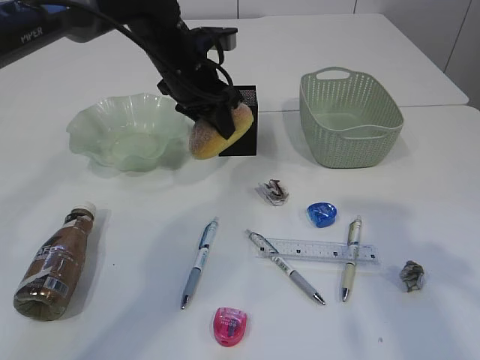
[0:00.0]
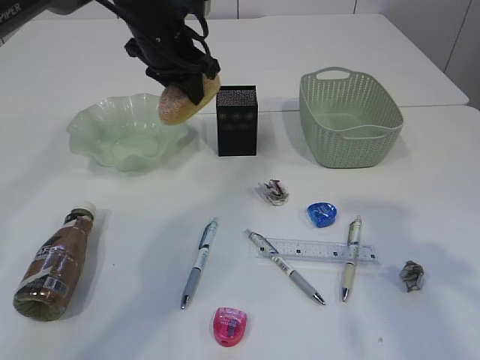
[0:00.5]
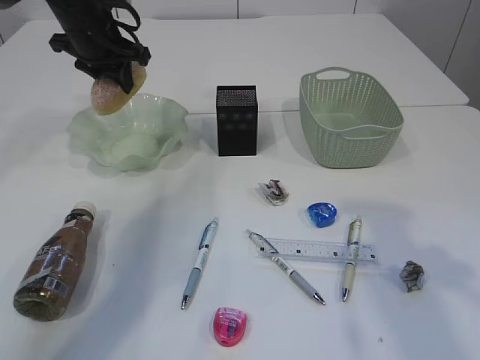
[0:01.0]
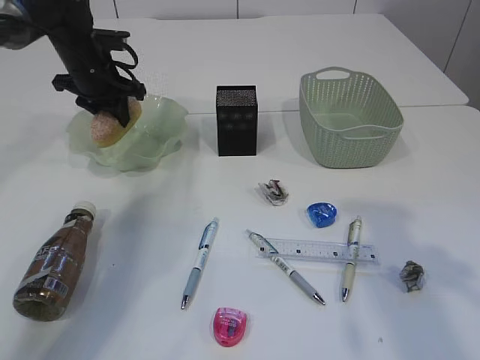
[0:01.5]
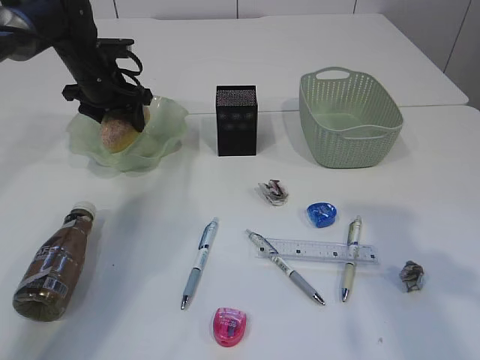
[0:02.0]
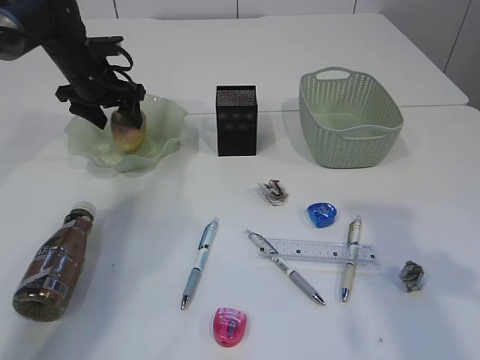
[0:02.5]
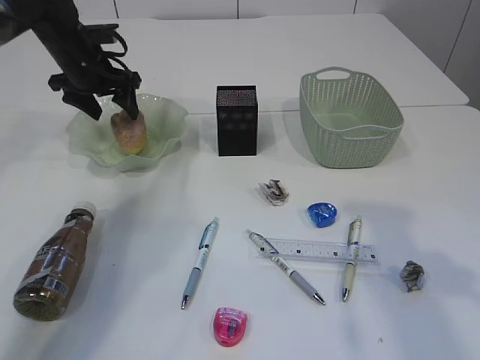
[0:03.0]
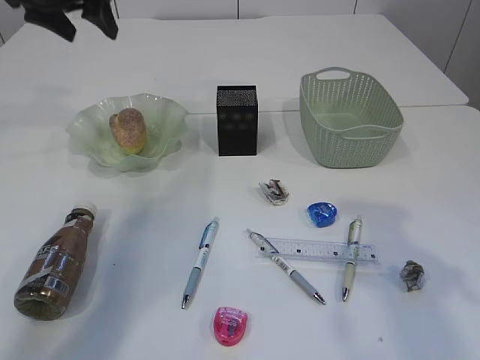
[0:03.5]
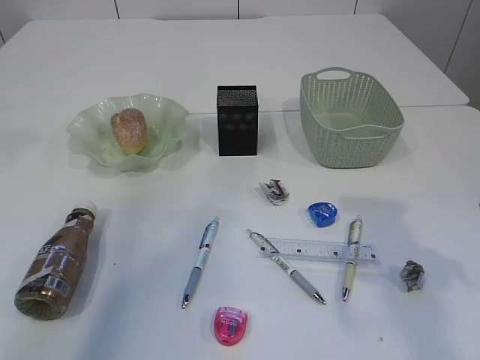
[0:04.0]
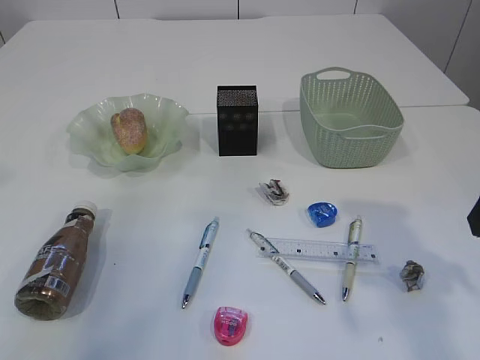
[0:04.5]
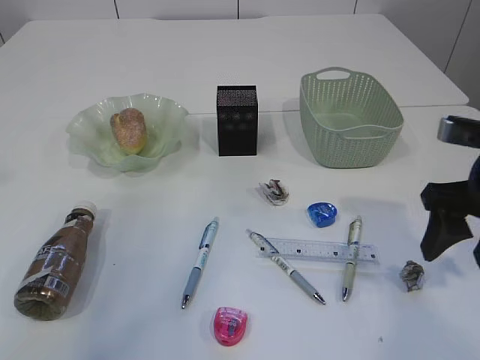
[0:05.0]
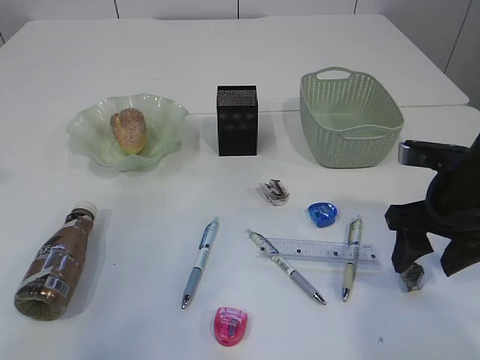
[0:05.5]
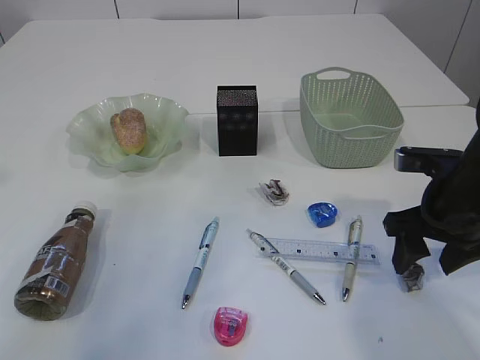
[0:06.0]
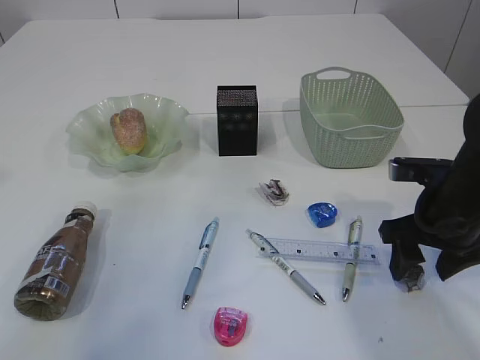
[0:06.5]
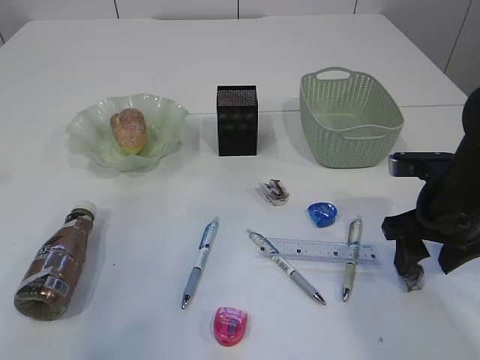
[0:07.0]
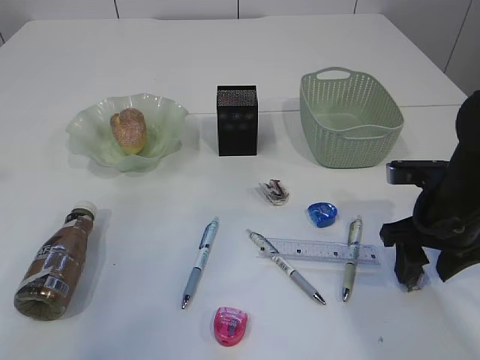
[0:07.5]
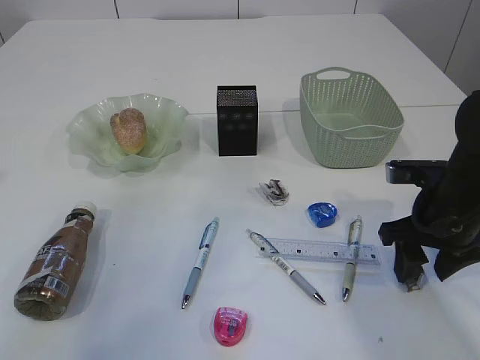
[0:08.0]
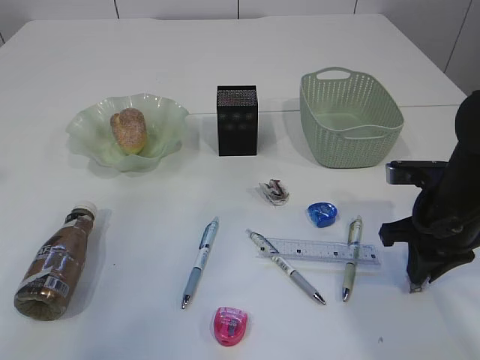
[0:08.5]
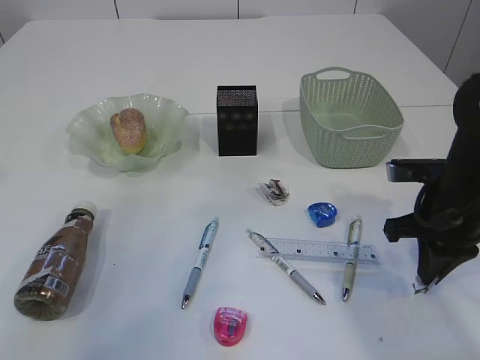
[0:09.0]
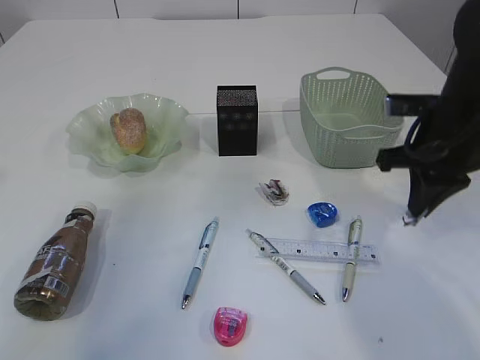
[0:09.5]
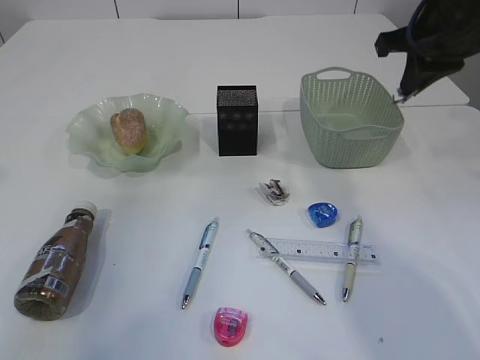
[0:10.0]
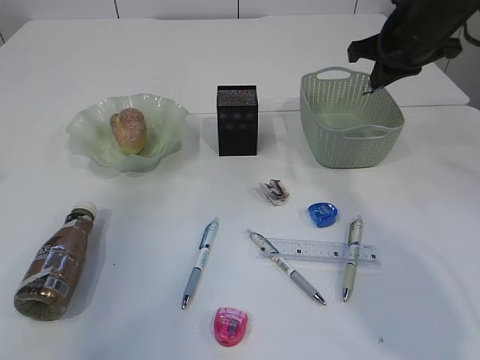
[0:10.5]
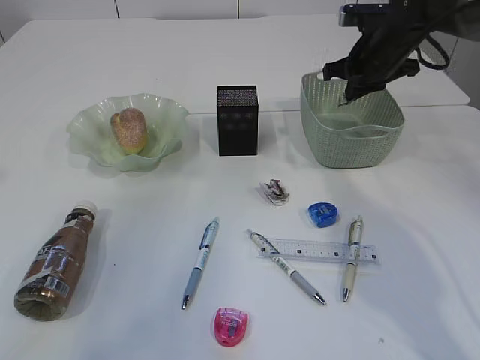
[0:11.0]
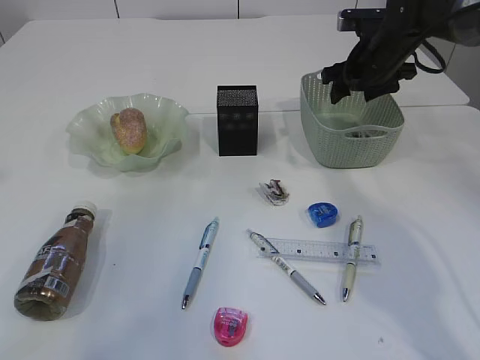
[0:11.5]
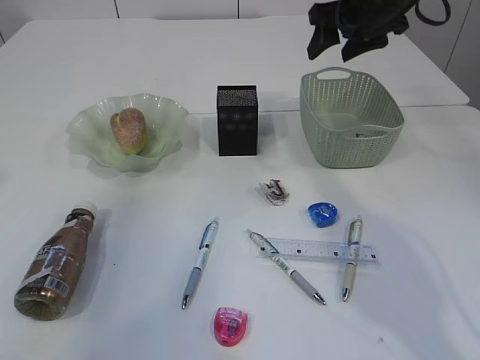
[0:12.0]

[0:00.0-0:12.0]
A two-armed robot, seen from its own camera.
Step, 0:00.5 to 0:03.0: place the bread in the plate.
Step, 0:03.5 to 0:09.0: Pick up the waste paper.
Step, 0:09.5 to 0:11.5: Place the waste paper in the basket.
0:00.0 to 0:02.0: The left gripper moves to the left and forward, approximately 15 cm, and opens.
0:02.0 to 0:04.0: The left gripper is displaced upward and backward by some 30 cm.
0:04.0 to 0:06.0: The right gripper goes about 15 cm downward and forward.
0:06.0 to 0:08.0: There are only small adjustments of the grippers.
0:08.0 to 0:10.0: The right gripper shifts some 20 cm upward and forward, and closes up.
0:10.0 to 0:12.0: The right gripper goes about 10 cm forward, and opens its fingers.

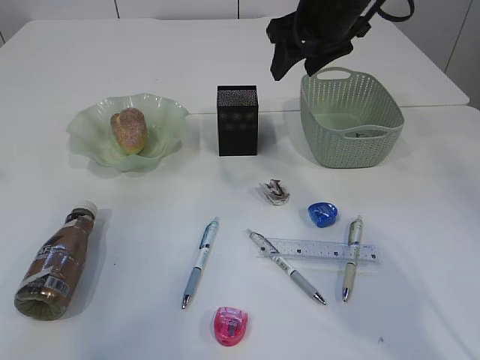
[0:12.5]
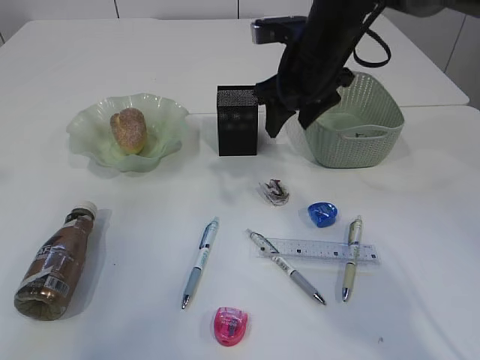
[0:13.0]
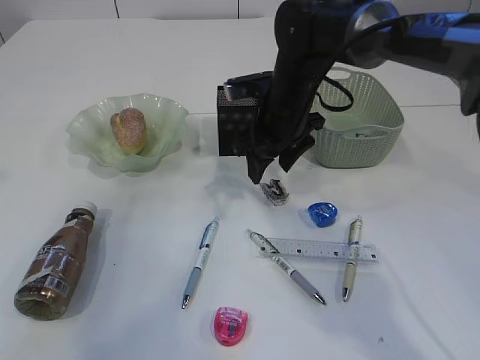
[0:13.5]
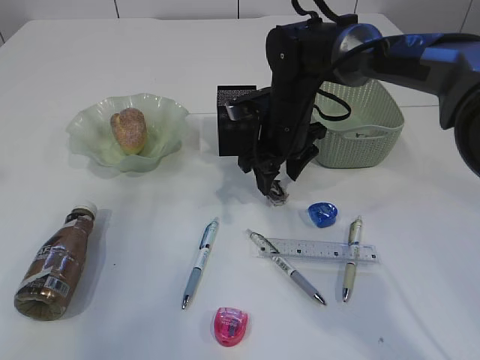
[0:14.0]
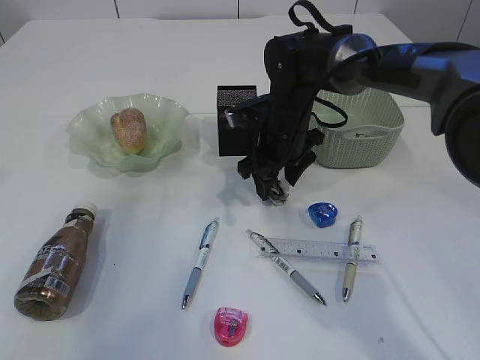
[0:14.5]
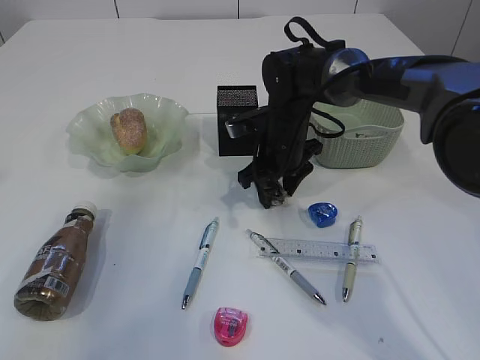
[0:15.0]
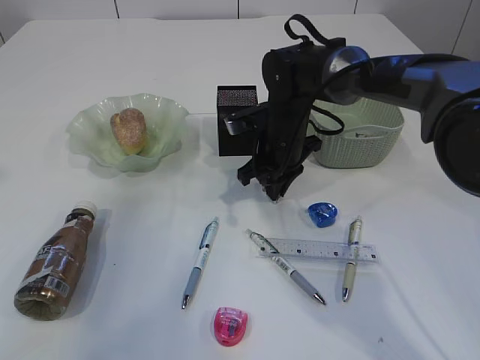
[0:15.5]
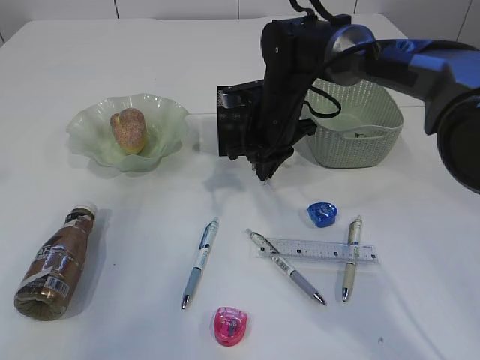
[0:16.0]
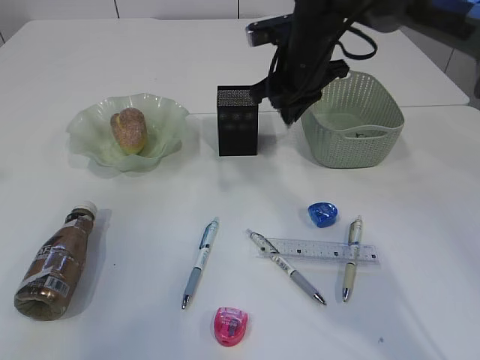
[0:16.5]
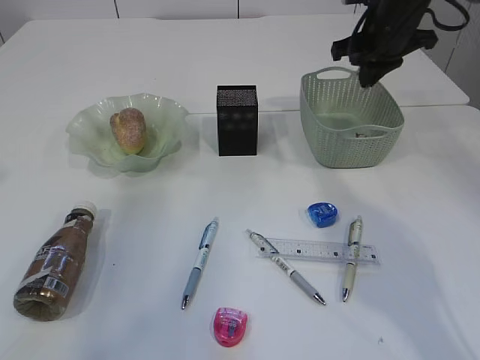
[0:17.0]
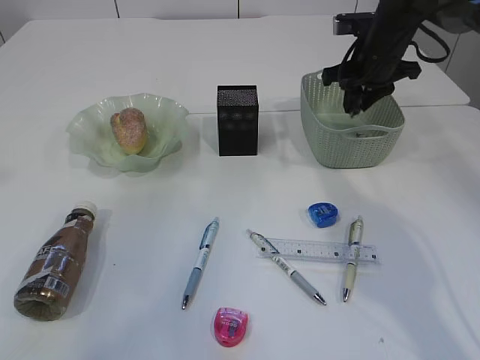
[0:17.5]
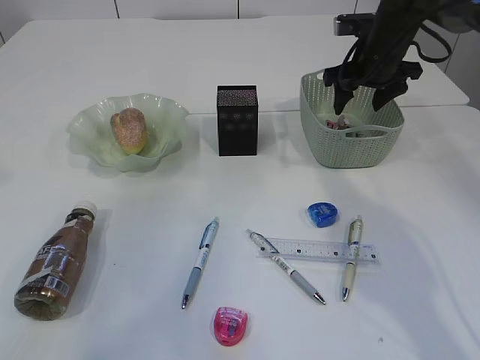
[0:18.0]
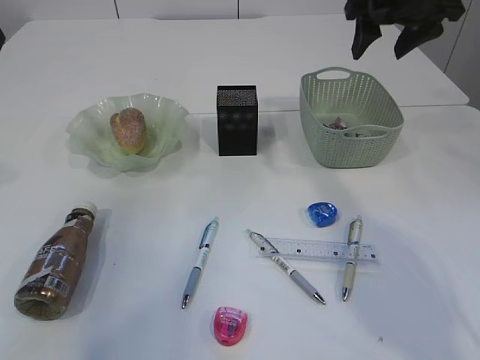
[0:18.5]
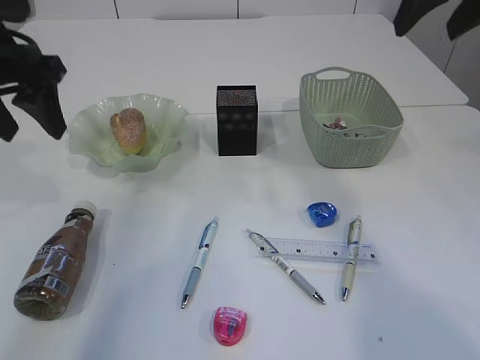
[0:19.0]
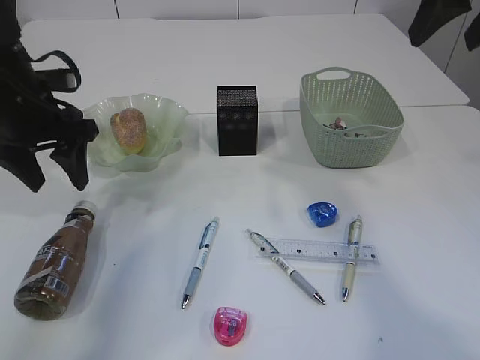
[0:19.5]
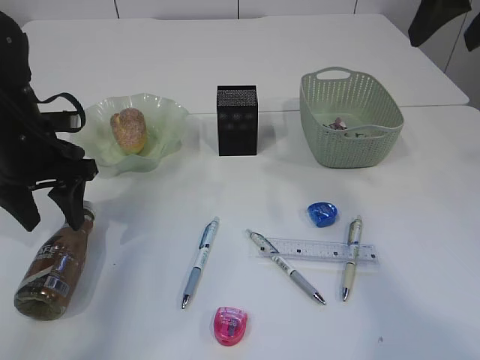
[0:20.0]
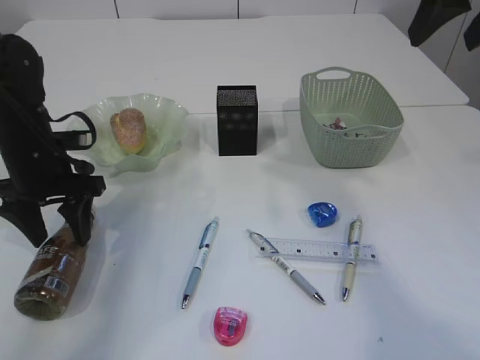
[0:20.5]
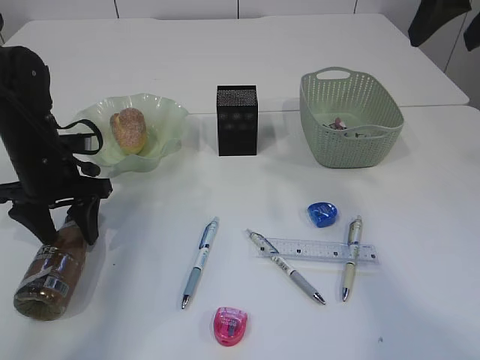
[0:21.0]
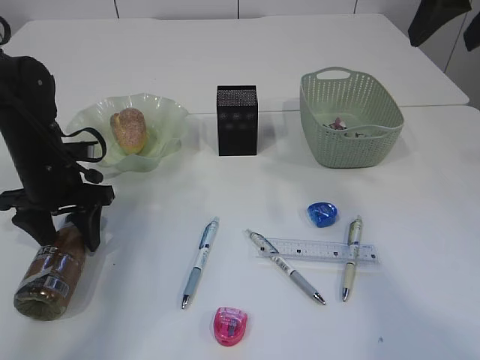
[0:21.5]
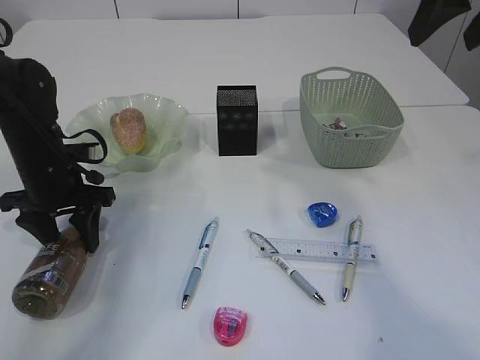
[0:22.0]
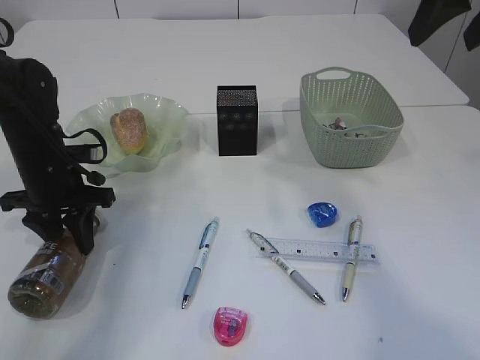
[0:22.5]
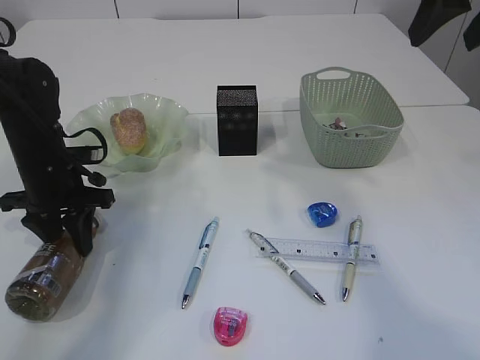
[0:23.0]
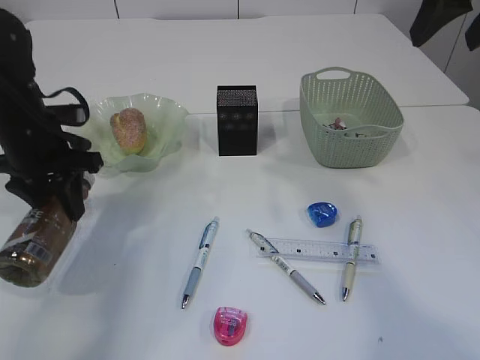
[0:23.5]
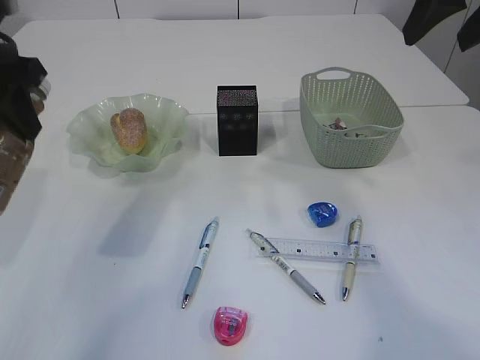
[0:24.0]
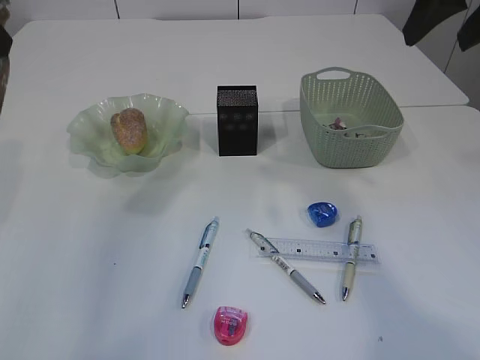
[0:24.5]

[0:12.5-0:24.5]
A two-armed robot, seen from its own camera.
Step, 0:12.5 to 0:16.0: Pick up the waste paper.
Step, 0:16.5 to 0:18.0: Place the waste paper in the basket.
Step, 0:18.5 to 0:23.5: Pick up the bottle with the left arm.
0:12.5 to 0:14.5: The right gripper travels downward by about 15 cm.
0:14.5 to 0:16.5: The right gripper heads upward, covering roughly 10 cm, and closes up.
0:16.5 to 0:18.5: The right gripper heads to the right and upward, covering some 15 cm, and opens.
0:18.5 to 0:20.5: The left gripper goes approximately 25 cm downward. The right gripper goes roughly 15 cm backward and upward.
0:20.5 to 0:22.5: The left gripper closes up.
0:22.5 to 0:24.5: The left gripper goes some 25 cm upward.

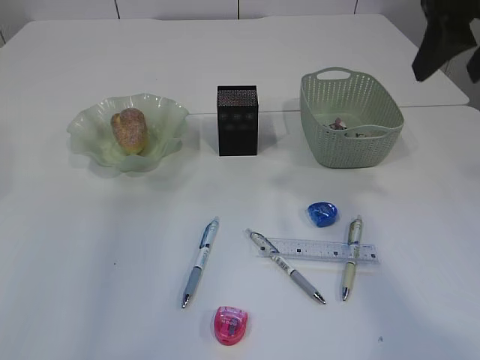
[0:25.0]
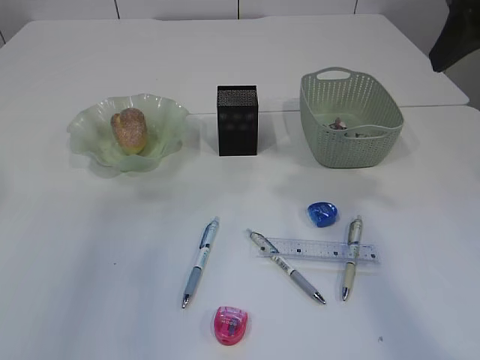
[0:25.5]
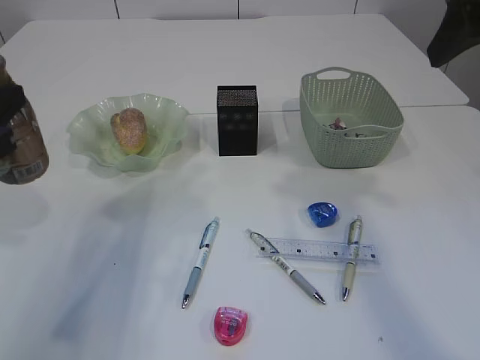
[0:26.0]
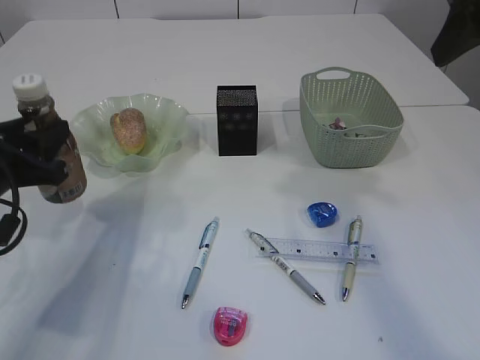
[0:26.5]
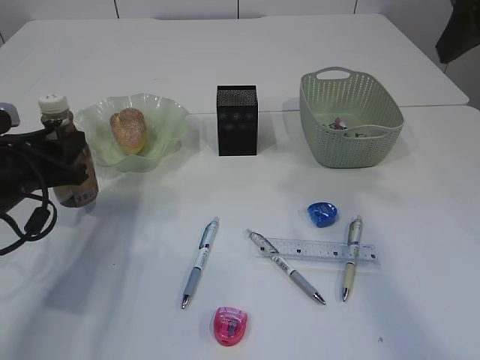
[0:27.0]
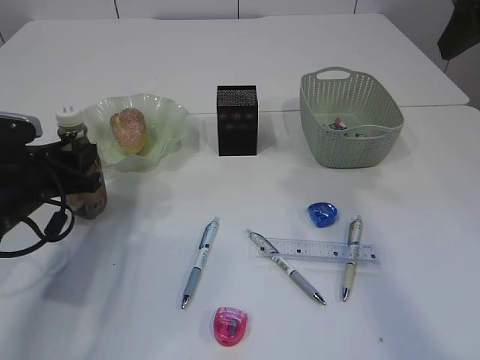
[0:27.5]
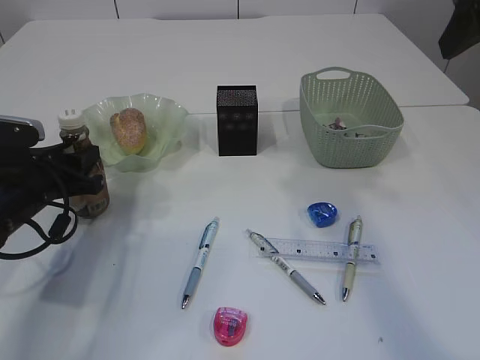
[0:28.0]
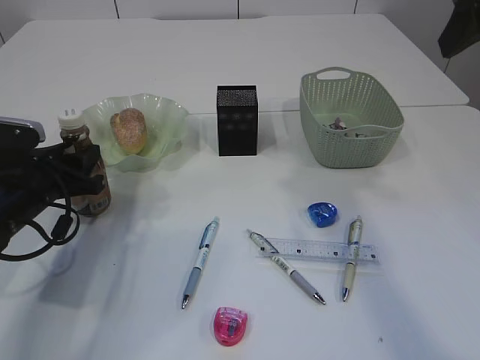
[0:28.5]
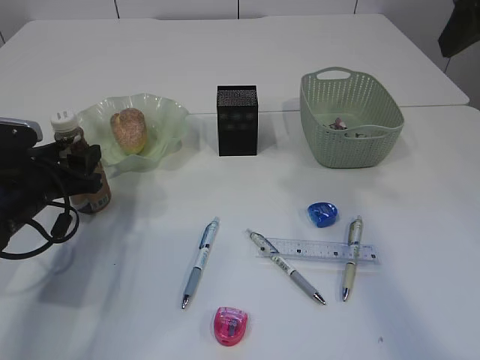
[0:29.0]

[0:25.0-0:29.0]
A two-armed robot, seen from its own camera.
0:25.0 to 0:27.0: The left gripper moves downward, roughly 25 cm.
0:27.0 to 0:29.0: The grippers move only a little.
